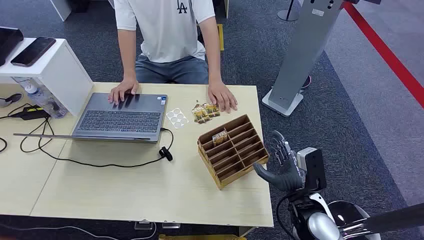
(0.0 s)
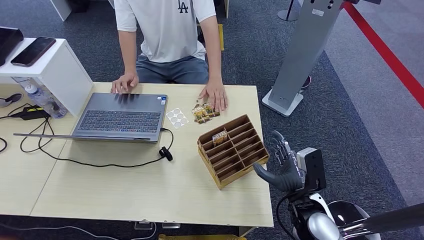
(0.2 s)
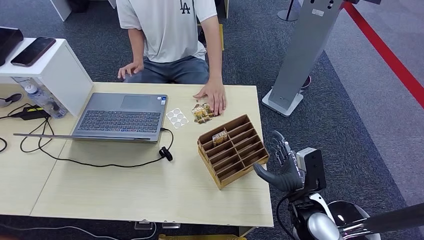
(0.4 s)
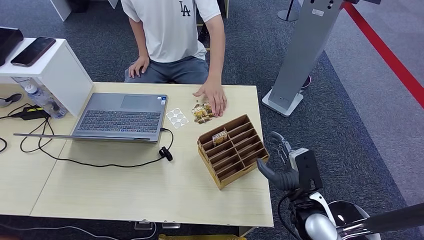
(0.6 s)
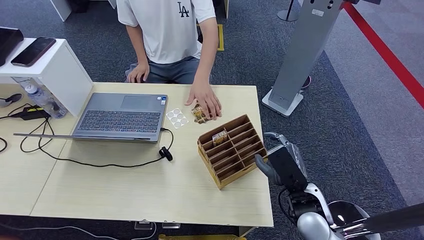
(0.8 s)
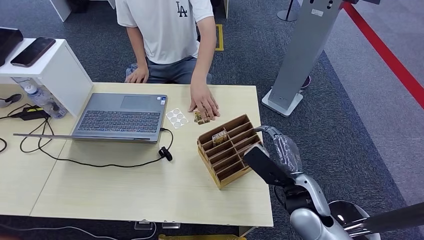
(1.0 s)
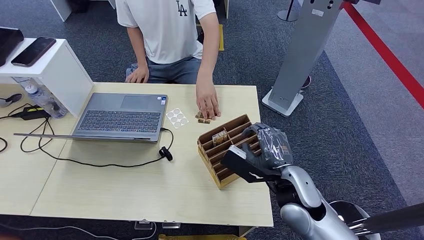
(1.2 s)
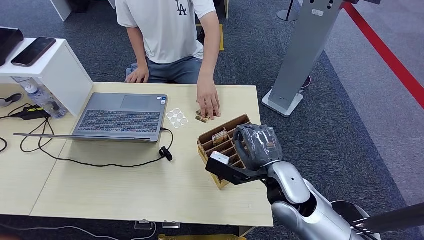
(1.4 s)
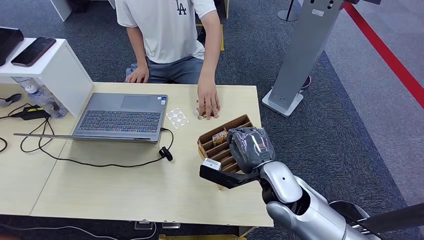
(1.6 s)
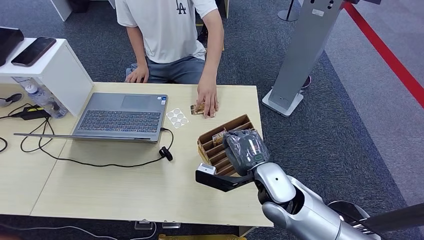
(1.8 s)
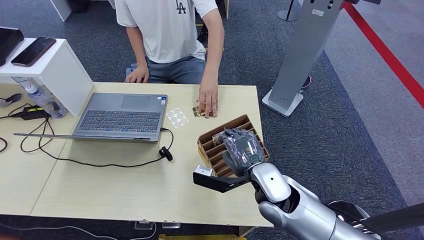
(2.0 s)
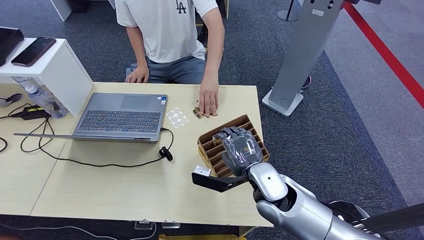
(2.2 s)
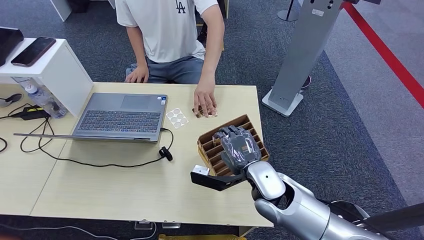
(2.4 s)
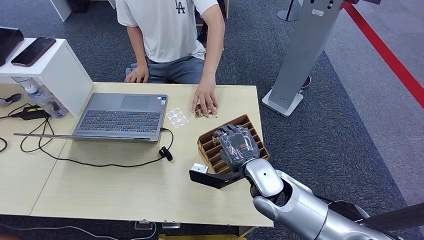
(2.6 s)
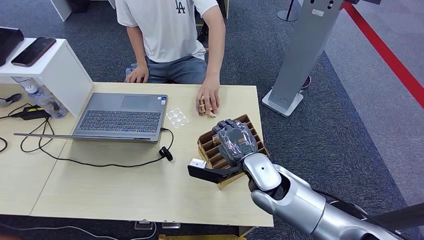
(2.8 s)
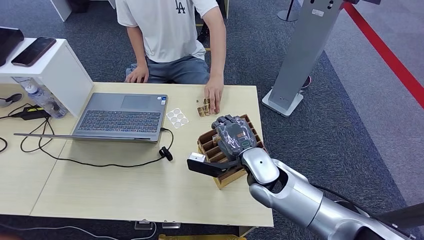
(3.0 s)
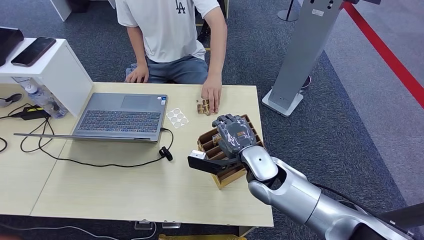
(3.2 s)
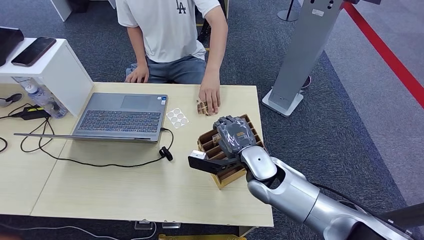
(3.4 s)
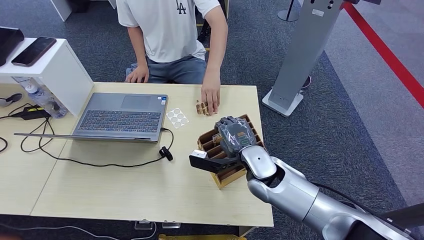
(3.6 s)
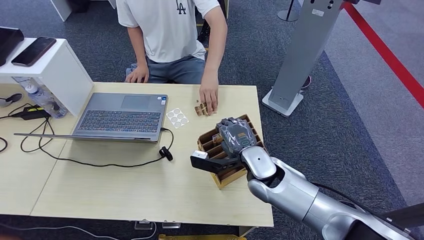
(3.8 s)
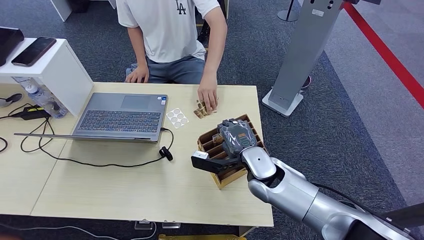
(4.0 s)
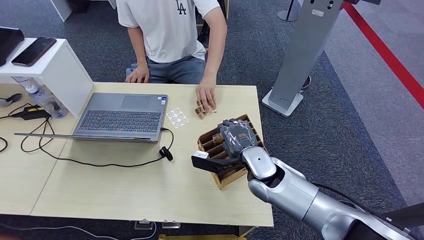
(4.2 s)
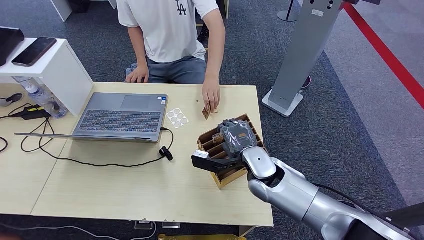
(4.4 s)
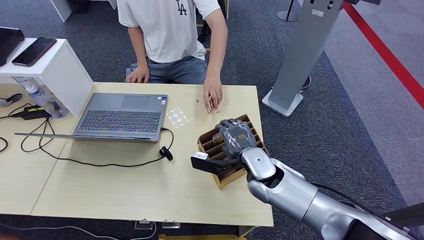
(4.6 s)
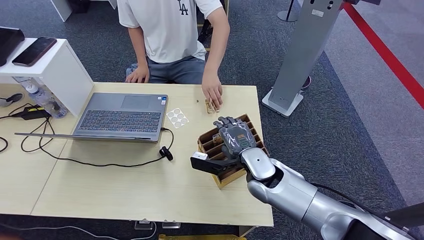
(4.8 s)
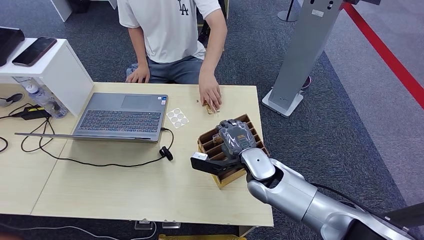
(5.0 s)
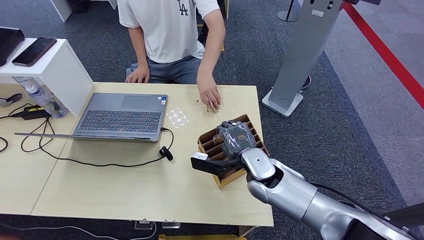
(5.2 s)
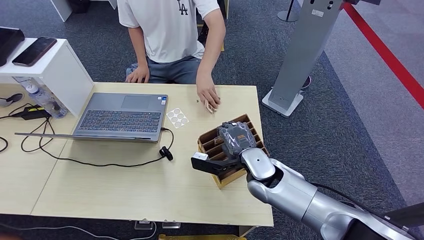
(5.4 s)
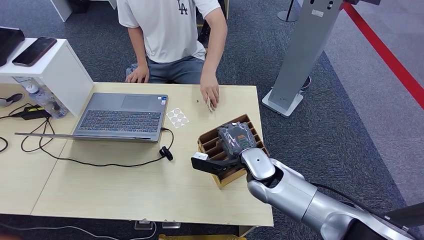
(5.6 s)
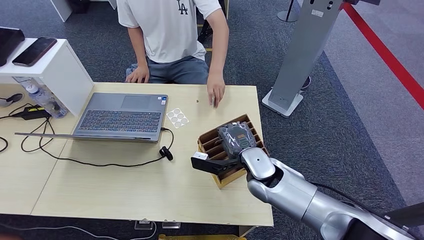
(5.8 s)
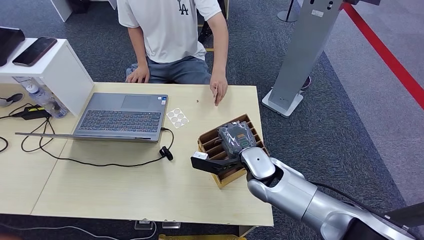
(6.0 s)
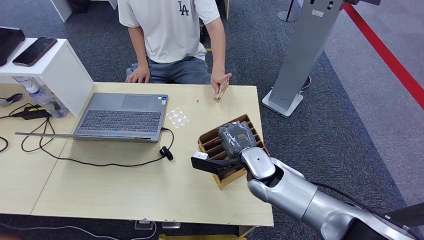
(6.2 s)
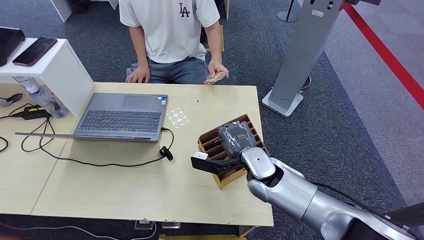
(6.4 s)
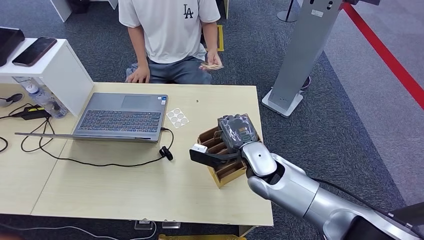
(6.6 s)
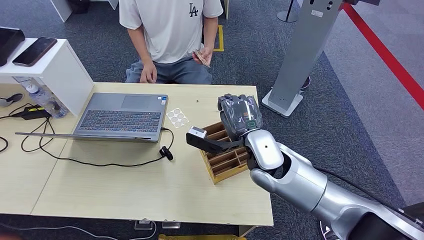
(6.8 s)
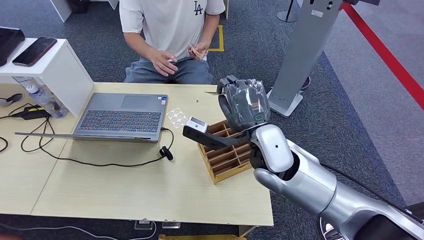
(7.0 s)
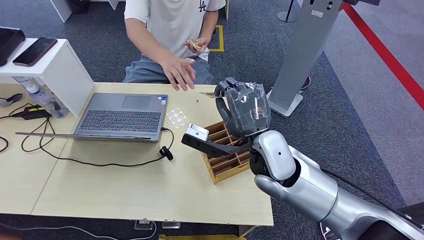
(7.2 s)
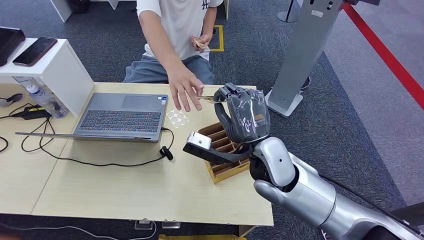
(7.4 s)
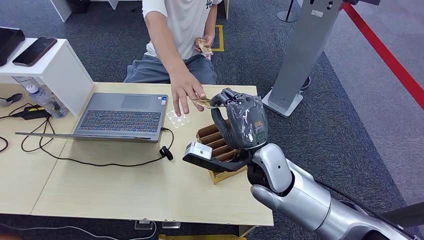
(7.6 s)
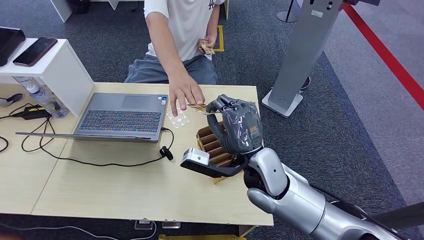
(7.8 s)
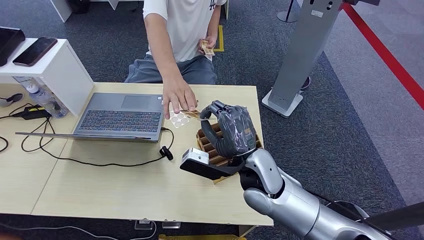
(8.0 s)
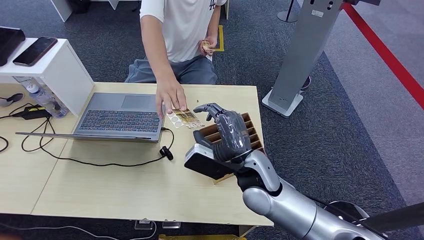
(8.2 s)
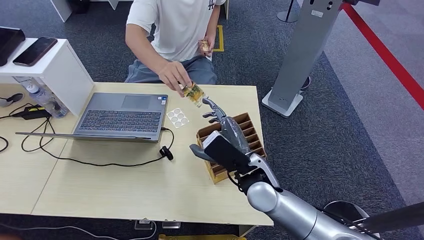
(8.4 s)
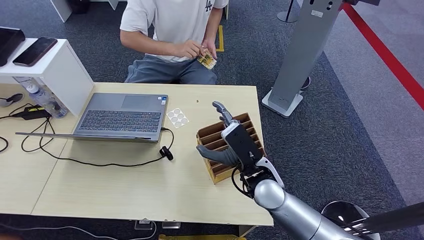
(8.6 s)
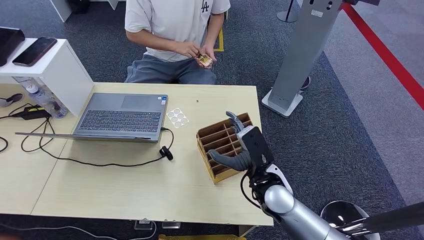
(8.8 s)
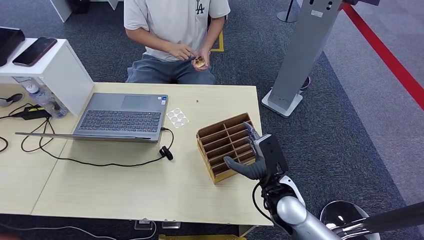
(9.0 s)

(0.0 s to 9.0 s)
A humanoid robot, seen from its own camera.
Step, 0.0 s - 7.0 s: Pick up the room card from the card holder.
Step, 7.4 s - 9.0 s: Hand the room card to the target.
1.6 s - 3.0 s: The right hand ends up roughly 5 cm from where it was.
3.0 s - 4.4 s: The hands stay close to where they were, moving slightly.
4.4 s - 6.0 s: Both hands stay about where they are.
6.0 s - 7.6 s: The right hand goes approximately 10 cm upward.
7.6 s - 9.0 s: The right hand is displaced downward and to the right by approximately 15 cm.
